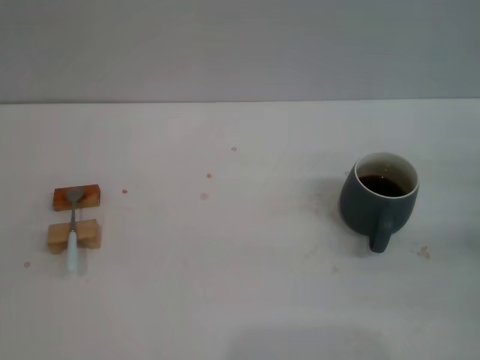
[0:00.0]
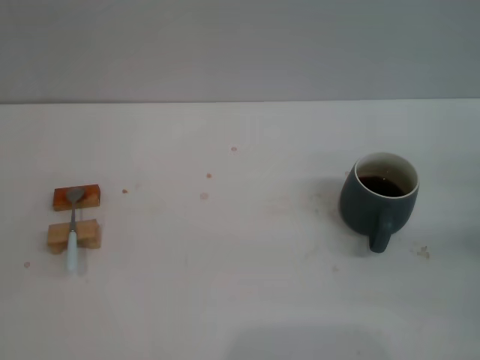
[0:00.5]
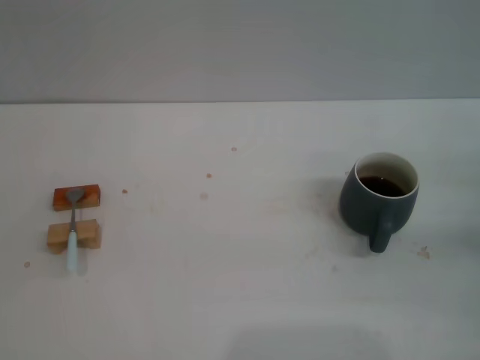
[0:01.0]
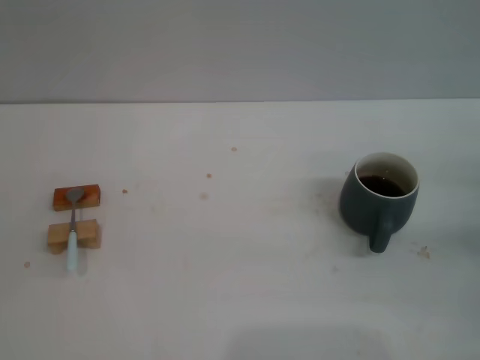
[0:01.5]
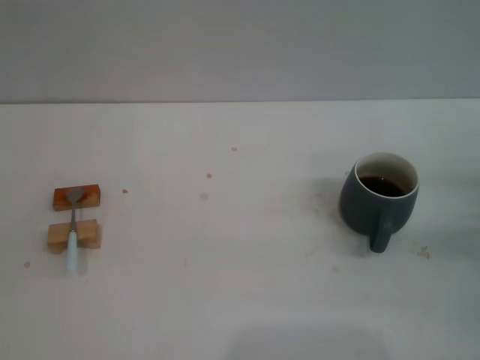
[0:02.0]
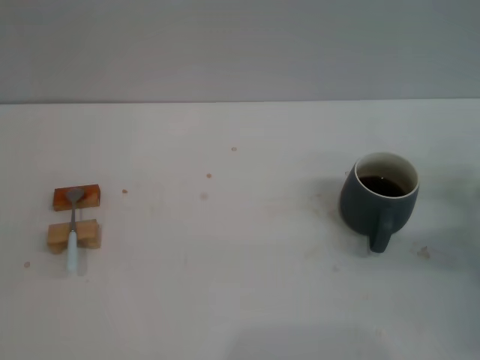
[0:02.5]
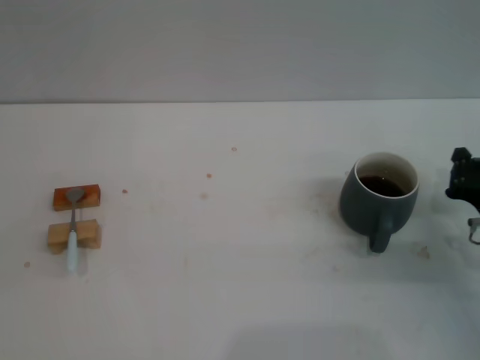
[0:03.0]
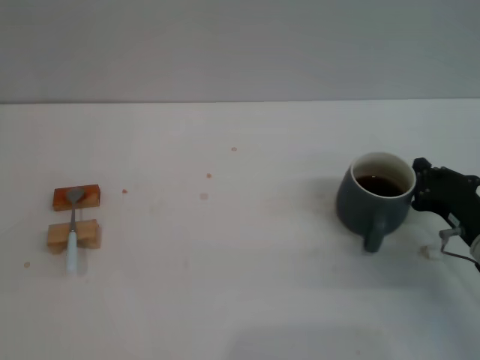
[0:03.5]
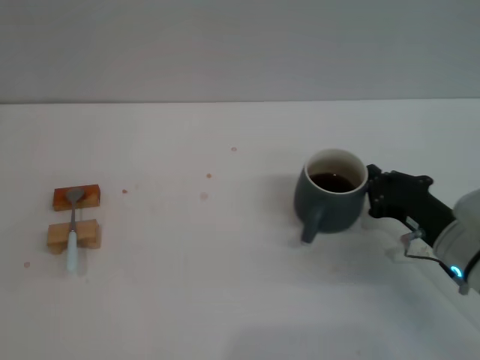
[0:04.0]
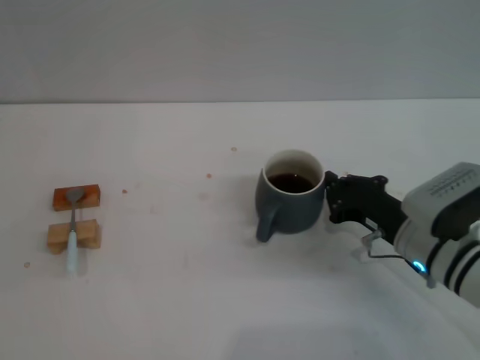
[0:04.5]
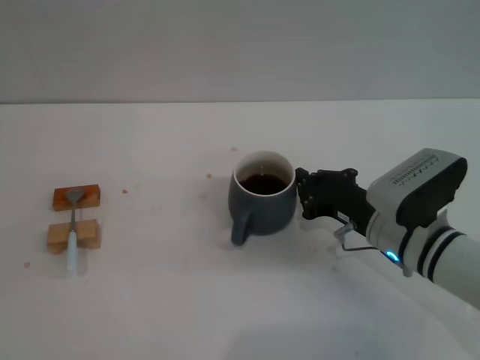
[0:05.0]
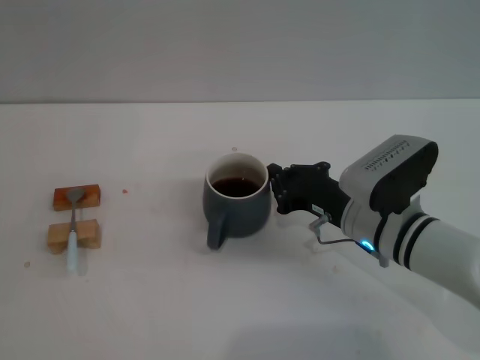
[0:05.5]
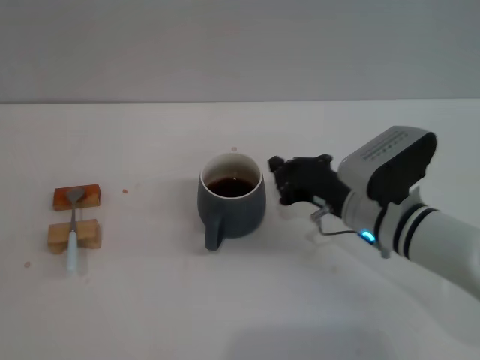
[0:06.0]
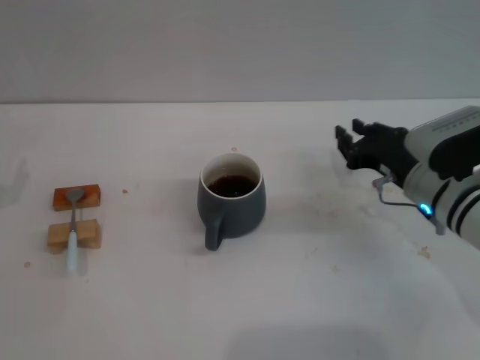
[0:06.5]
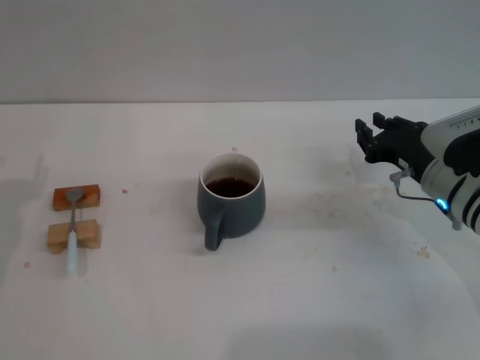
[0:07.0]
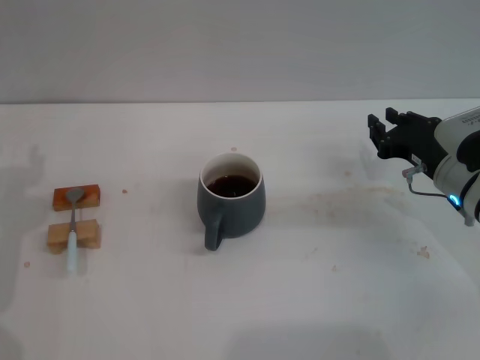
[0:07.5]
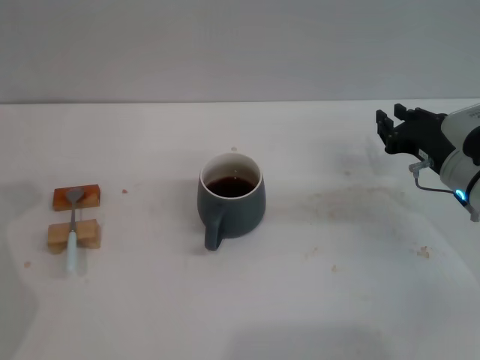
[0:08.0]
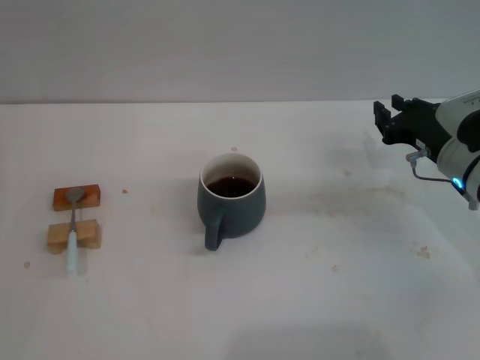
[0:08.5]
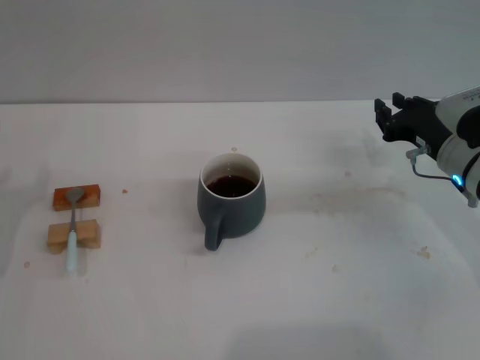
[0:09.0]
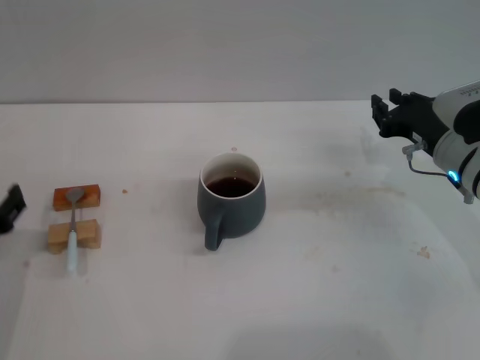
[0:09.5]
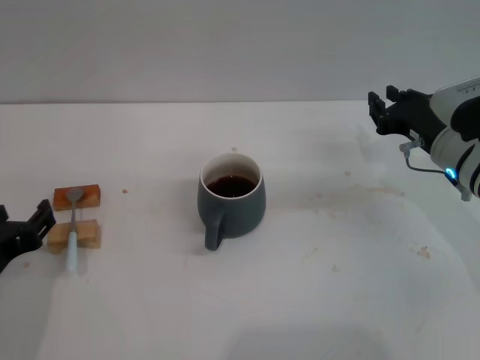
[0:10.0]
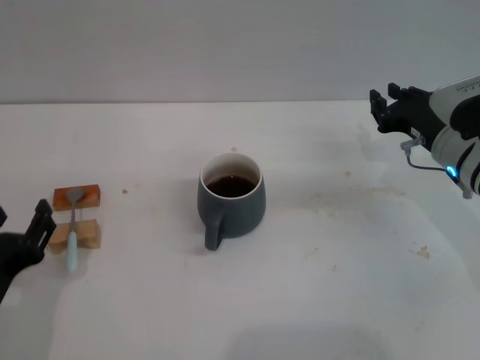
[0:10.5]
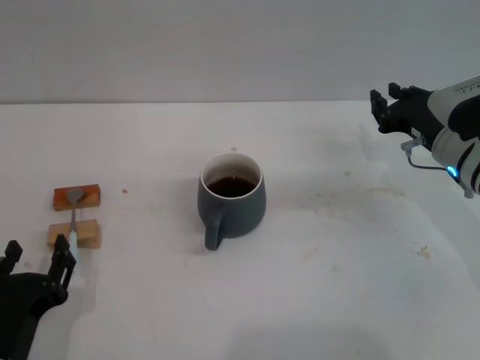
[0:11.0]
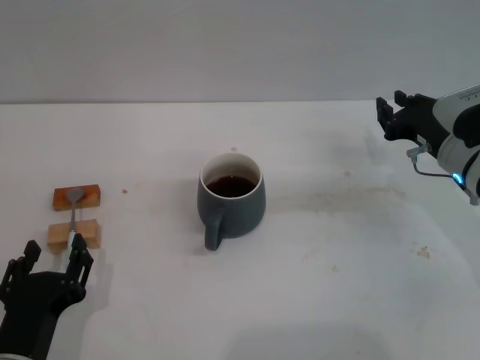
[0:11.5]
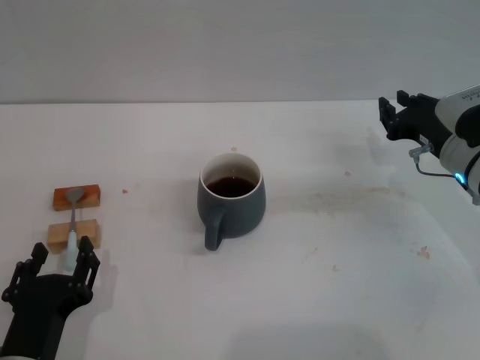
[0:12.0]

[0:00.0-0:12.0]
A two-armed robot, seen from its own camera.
Task of the whole recording: Move the grey cup to the center, lift the blue spoon, stir it three times in the cup, and put the spoon into the cup.
Step, 0:00.0 to 0:06.0: Move the cup with coffee to the center of view with the right gripper.
0:02.0 to 0:04.0: The right gripper shifts about 10 cm to the left.
0:04.0 to 0:06.0: The right gripper moves to the left, some 10 cm.
0:06.0 to 0:08.0: The left gripper goes approximately 10 cm upward and to the right, while the right gripper shifts about 10 cm to the right, and opens its fingers.
0:08.0 to 0:10.0: The left gripper goes some 15 cm backward and to the right.
0:10.0 to 0:12.0: The left gripper shifts roughly 10 cm downward, backward and to the right.

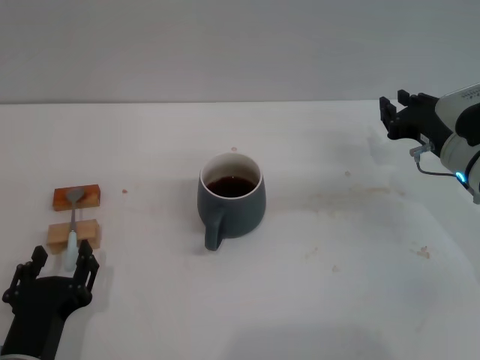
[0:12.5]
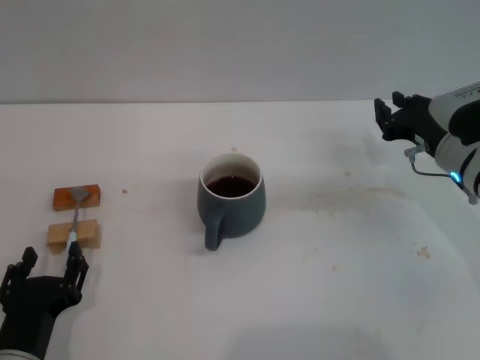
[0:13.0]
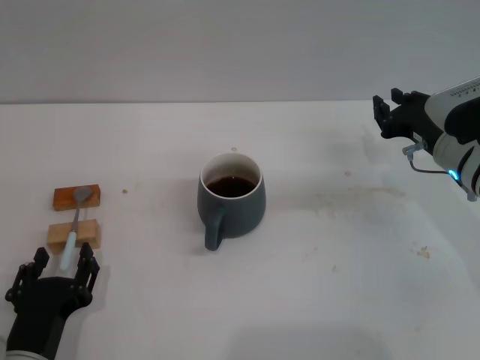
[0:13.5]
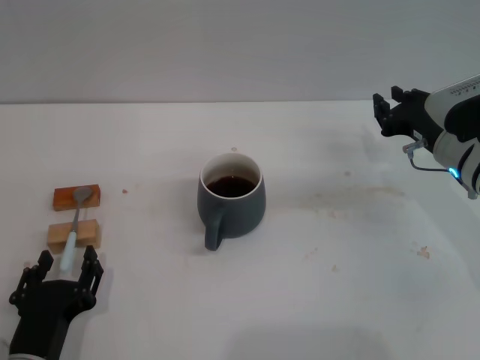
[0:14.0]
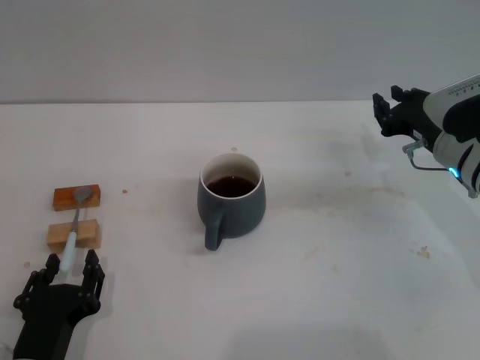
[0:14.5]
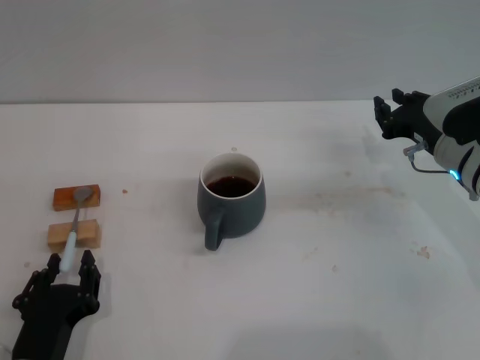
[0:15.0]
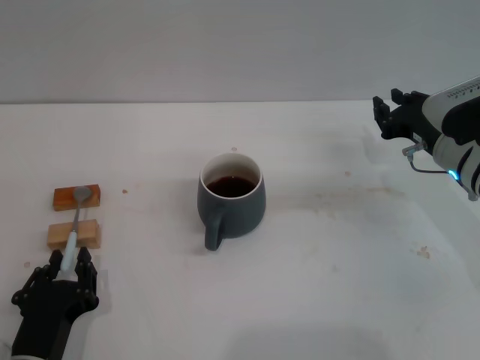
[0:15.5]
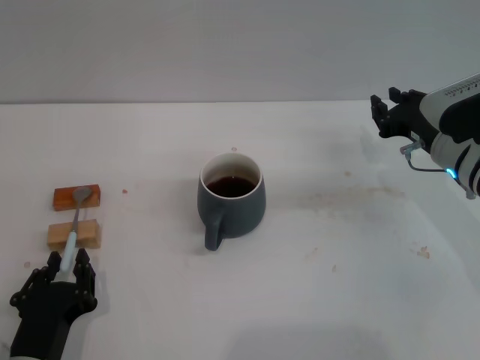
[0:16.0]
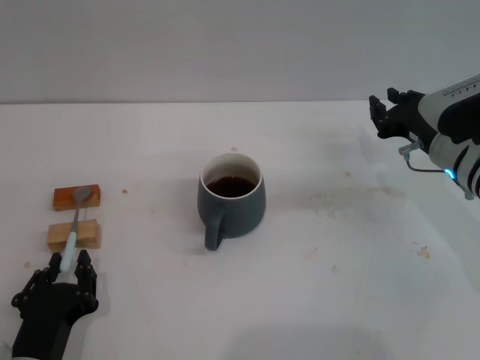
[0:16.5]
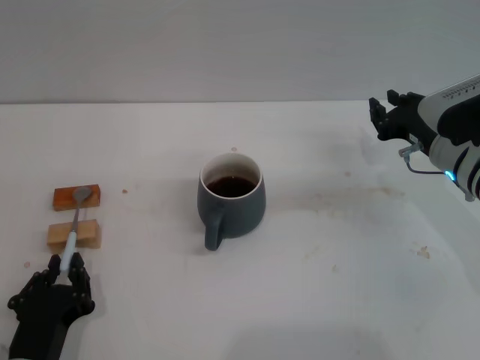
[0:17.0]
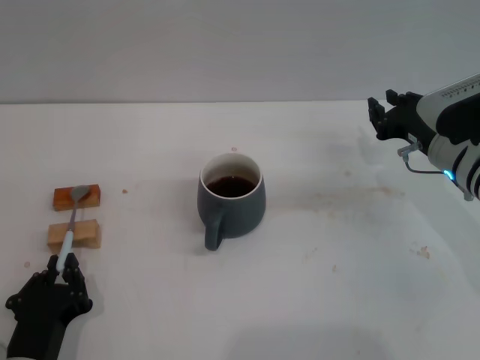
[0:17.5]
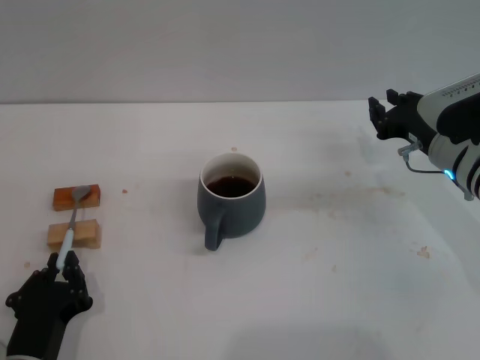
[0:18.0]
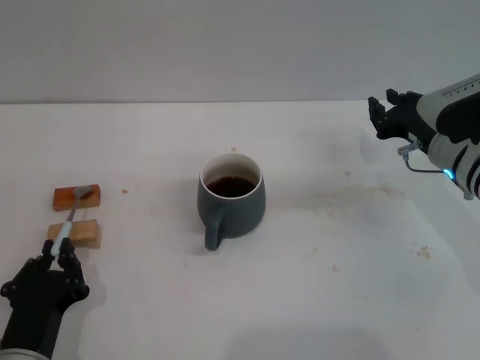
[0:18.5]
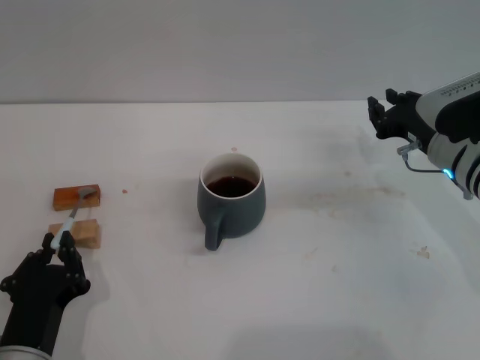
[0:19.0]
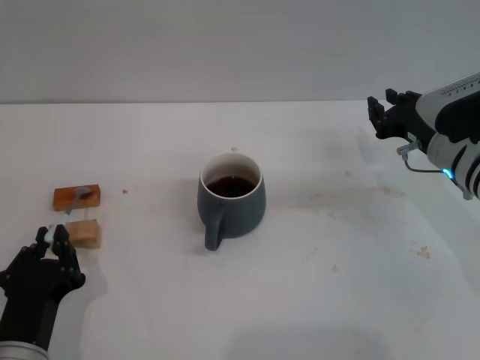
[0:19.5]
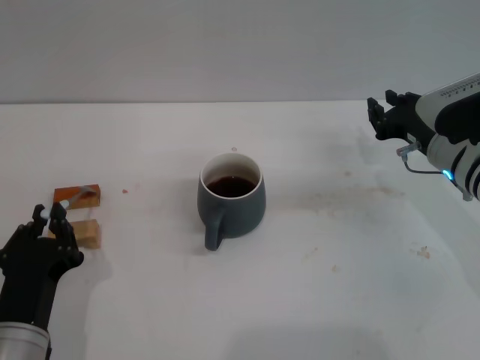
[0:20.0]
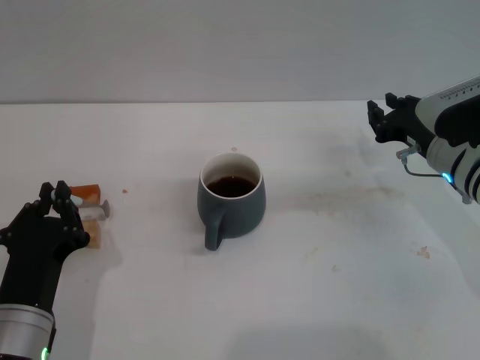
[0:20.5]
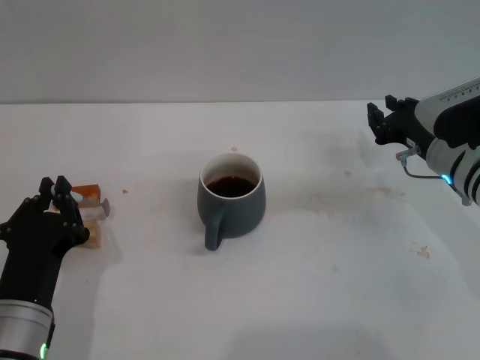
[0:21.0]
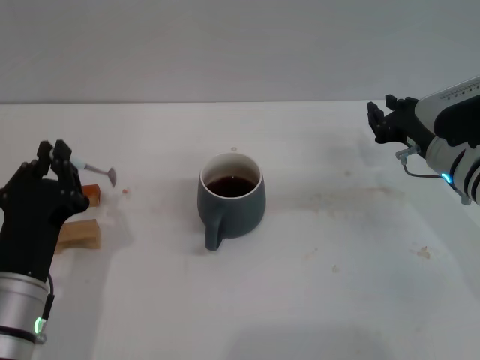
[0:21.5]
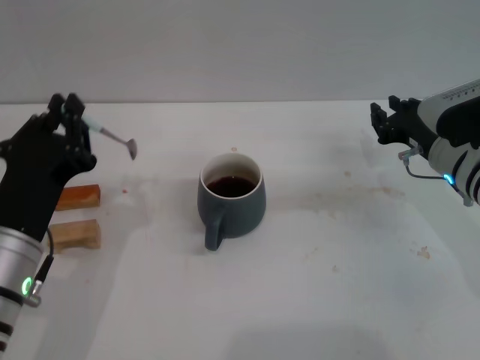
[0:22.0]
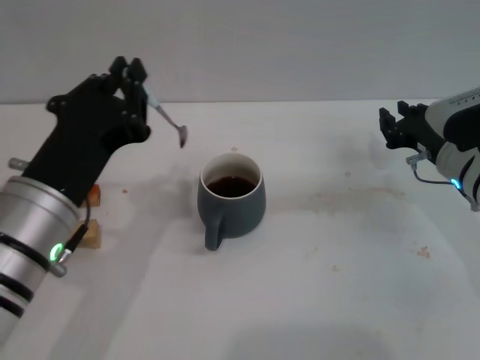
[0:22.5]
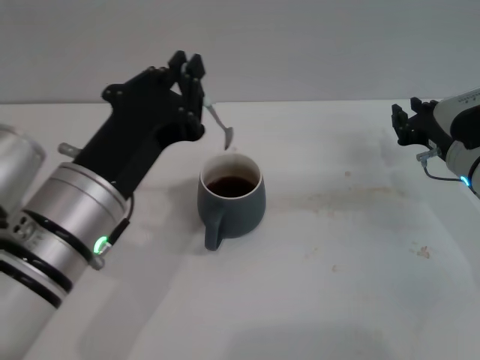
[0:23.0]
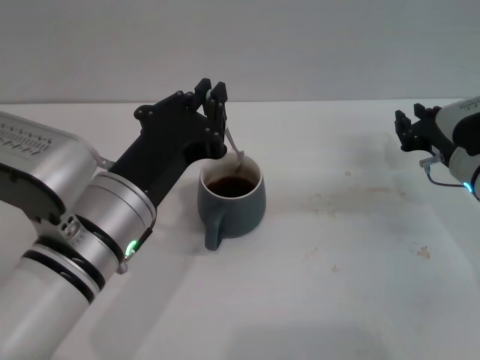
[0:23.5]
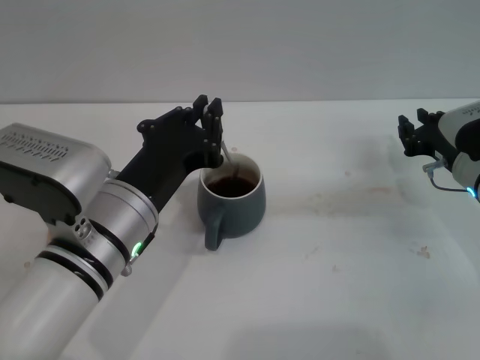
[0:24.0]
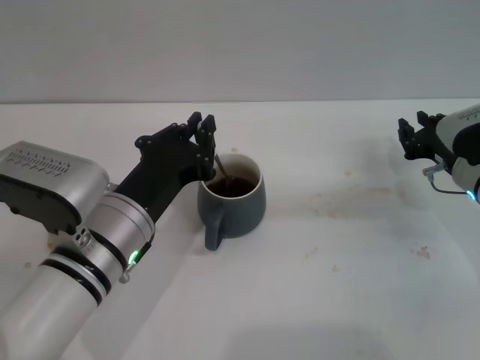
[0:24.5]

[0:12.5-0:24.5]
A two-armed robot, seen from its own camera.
Task of the whole recording: Move the grey cup to the center, lift the blue spoon, stir it three times in the cup, and put the spoon into the cup.
Step, 0:12.5 to 0:21.5: Pick up the spoon with the left gripper.
0:12.5 to 0:14.5: The grippers move only a little.
0:14.5 to 0:16.5: The left gripper closes up.
0:16.5 to 0:18.5: Both grippers stay about where they are.
0:18.5 to 0:20.5: The grippers stay close to where they were, moving slightly.
0:20.5 to 0:22.5: The left gripper moves upward, roughly 10 cm.
0:22.5 to 0:24.5: The left gripper shifts some 5 cm downward.

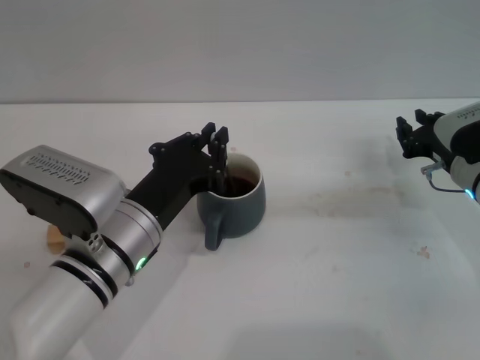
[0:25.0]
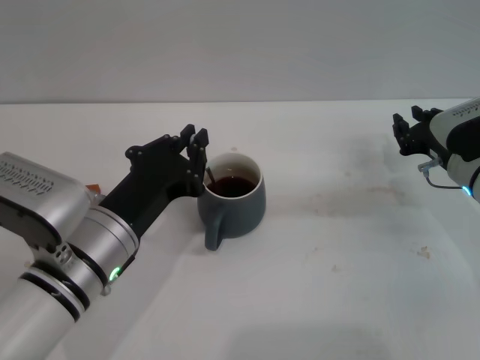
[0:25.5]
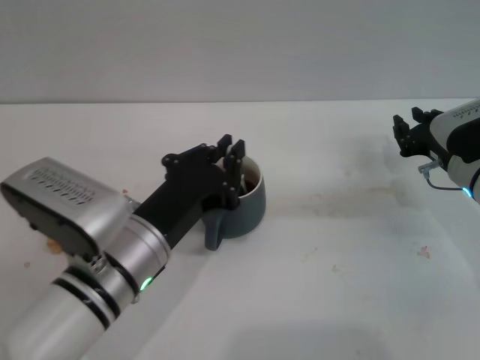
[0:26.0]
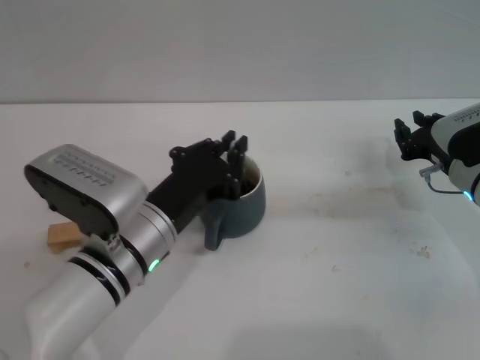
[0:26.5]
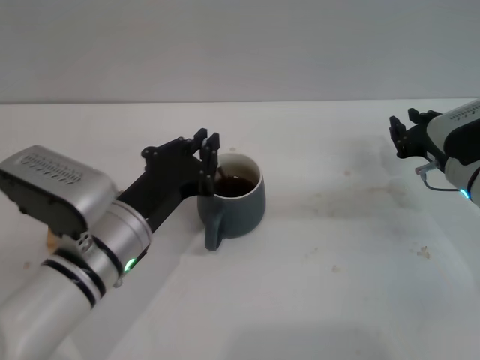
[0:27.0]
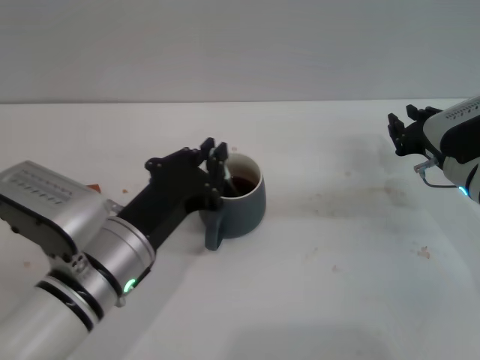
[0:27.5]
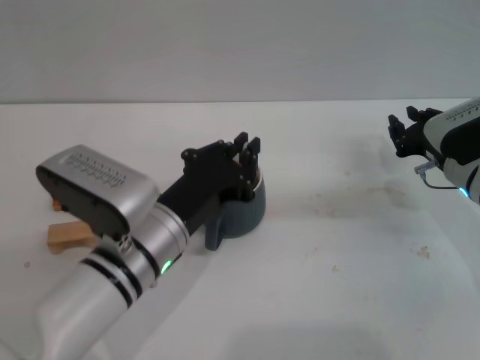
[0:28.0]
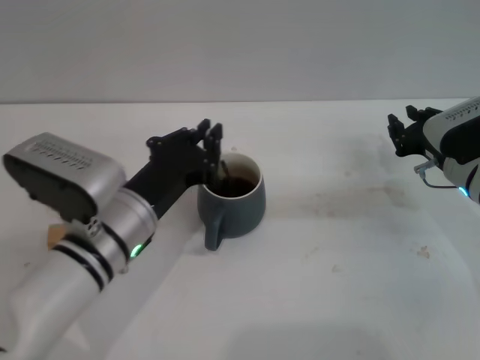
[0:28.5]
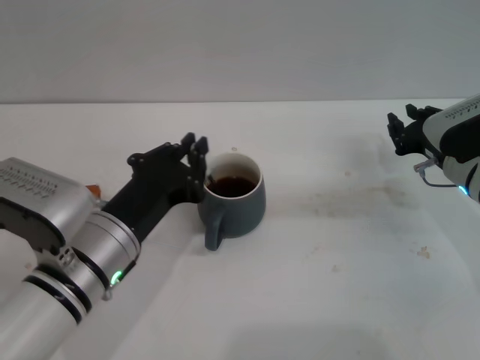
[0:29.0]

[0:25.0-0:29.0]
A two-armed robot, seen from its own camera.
Task of the whole recording: Move the grey cup to the center, lift the blue spoon, stir it three times in the cup, and put the spoon into the cup.
0:25.0 to 0:29.0: The grippers stay close to where they were, moving slightly.
